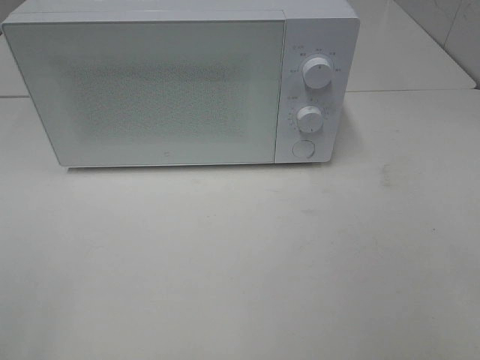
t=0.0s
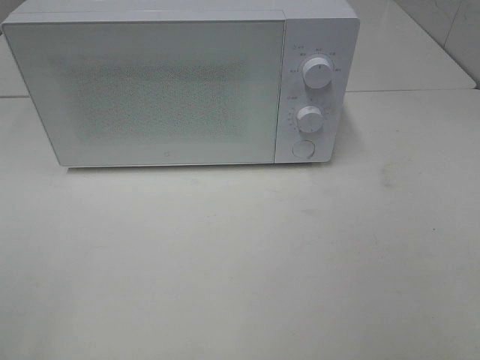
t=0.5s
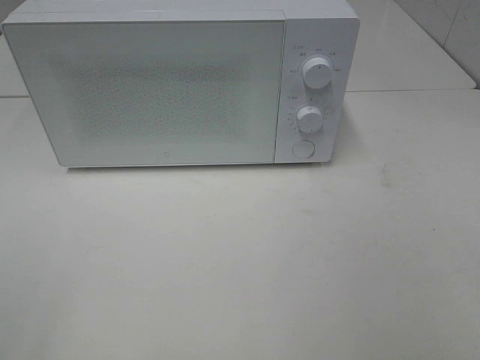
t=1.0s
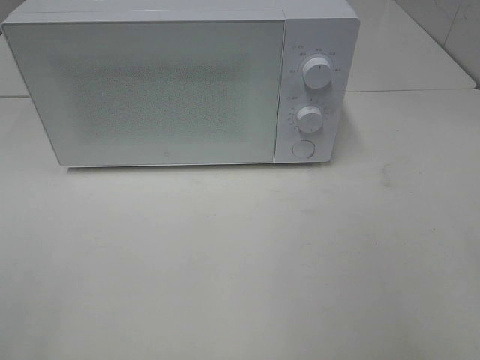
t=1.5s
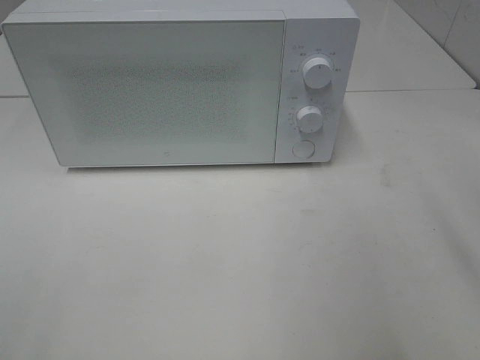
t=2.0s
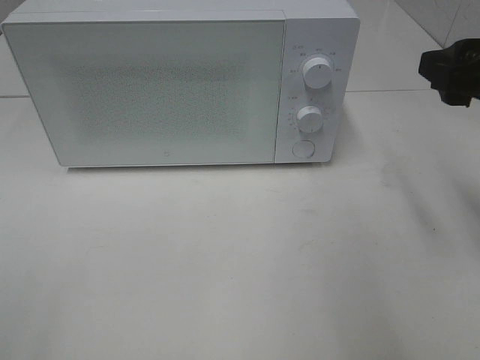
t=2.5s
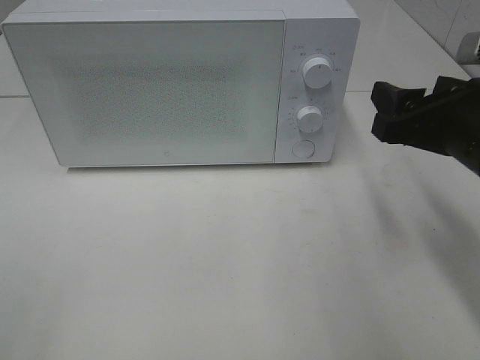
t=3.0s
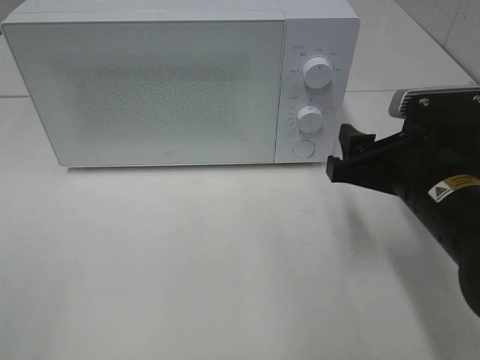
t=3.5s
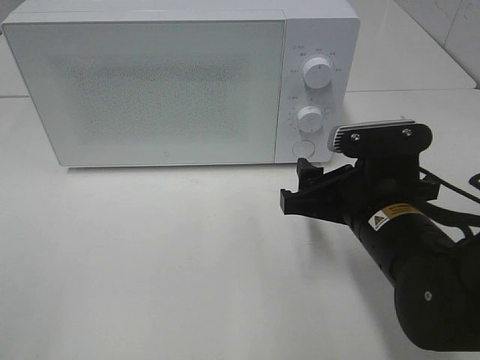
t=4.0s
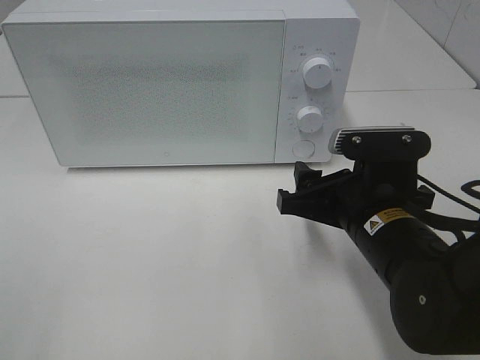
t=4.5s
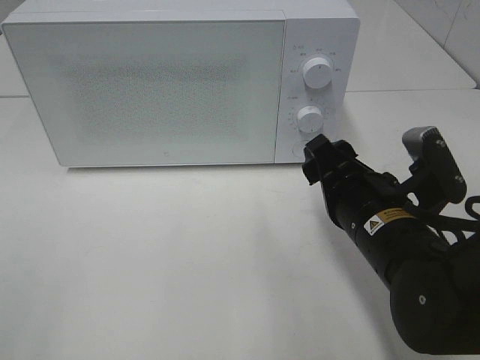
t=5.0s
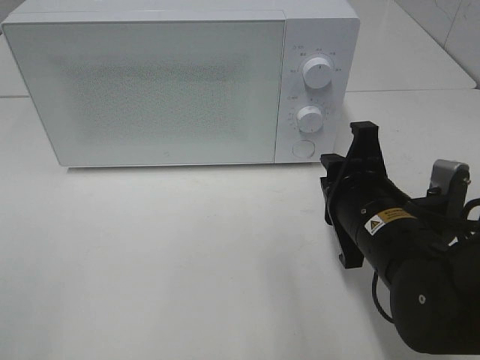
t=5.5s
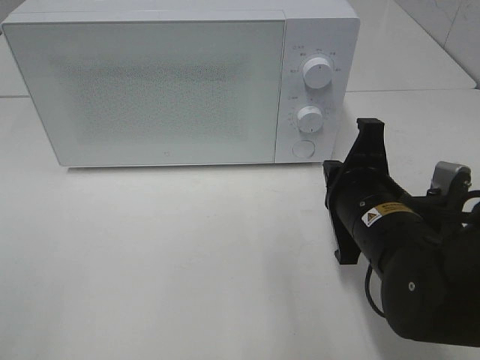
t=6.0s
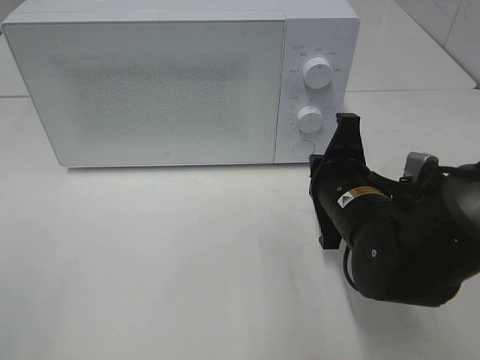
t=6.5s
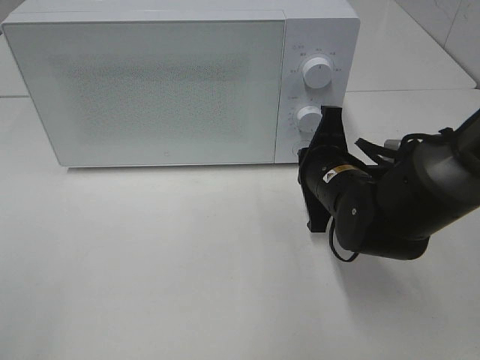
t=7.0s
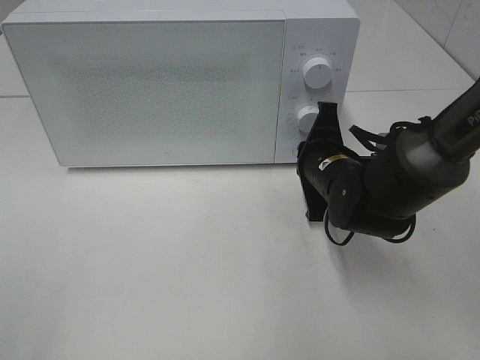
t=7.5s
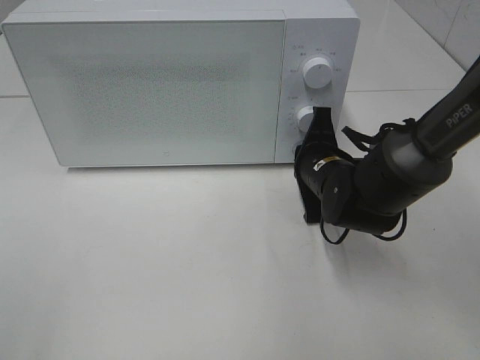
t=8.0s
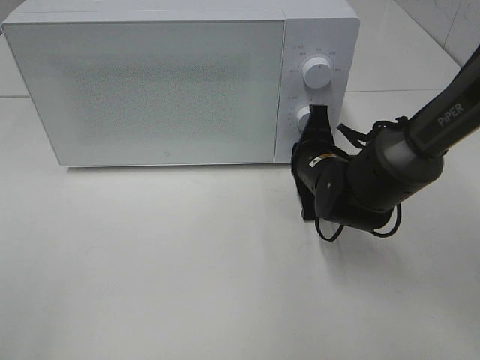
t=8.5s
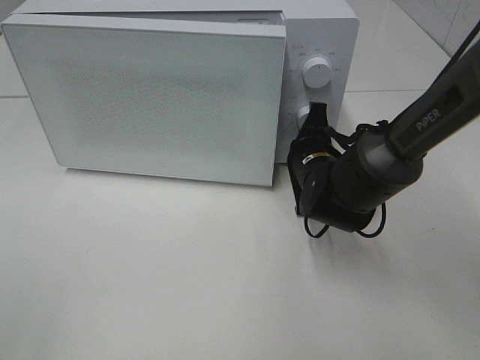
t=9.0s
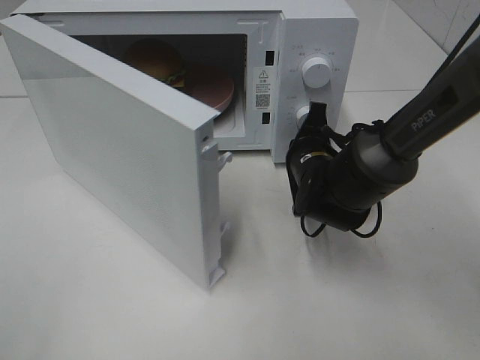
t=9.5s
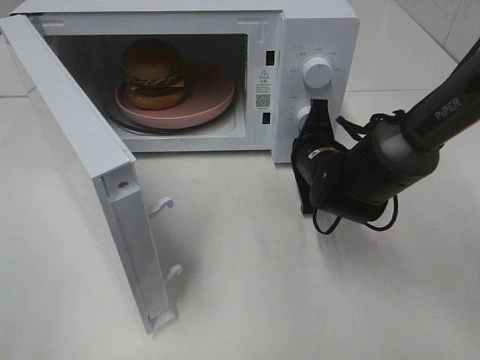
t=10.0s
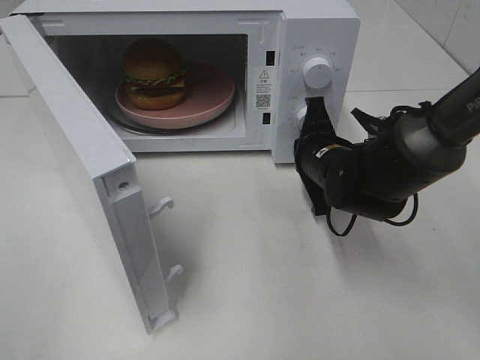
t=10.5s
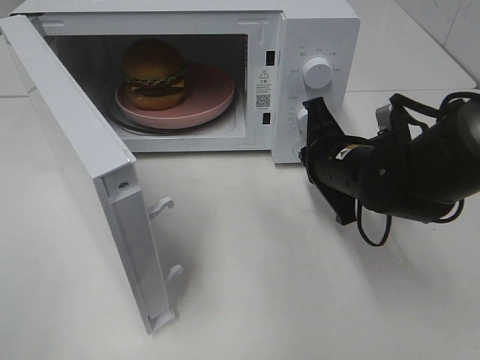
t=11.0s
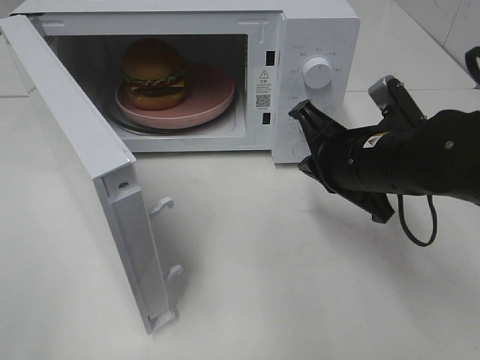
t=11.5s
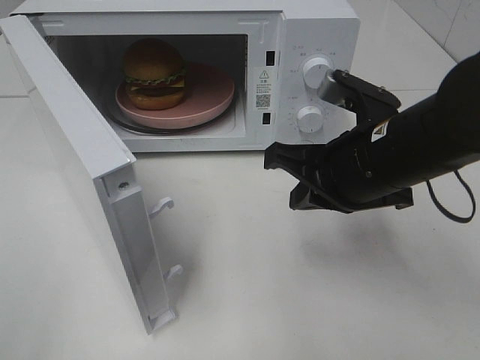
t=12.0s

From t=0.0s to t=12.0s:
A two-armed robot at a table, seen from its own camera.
Task of the whole recording: Heat the burger.
Step, from t=0.0s to t=10.5s: Right hand: press the switch.
From t=2.0s to t=4.0s: The right gripper heads downward and to the left, covering roughly 20 cm.
From t=4.0s to t=6.0s: The right gripper closes its fingers.
From t=6.0s to t=8.0s: The right gripper shifts some 15 cm forward and downward.
From t=10.0s to t=12.0s: The right gripper heads backward and upward, covering some 15 cm.

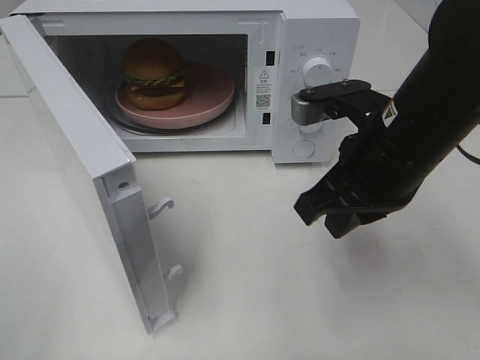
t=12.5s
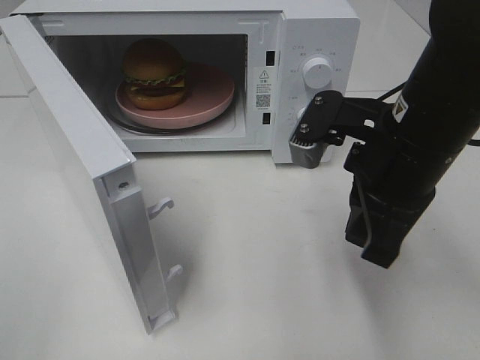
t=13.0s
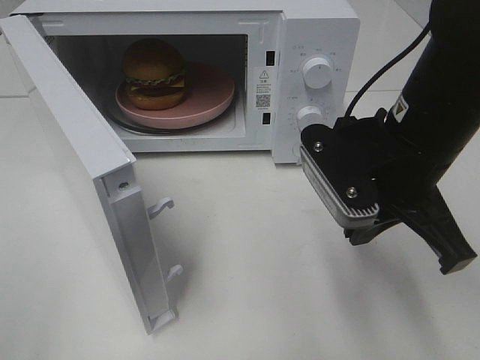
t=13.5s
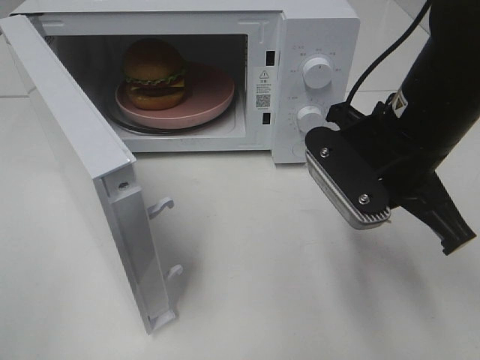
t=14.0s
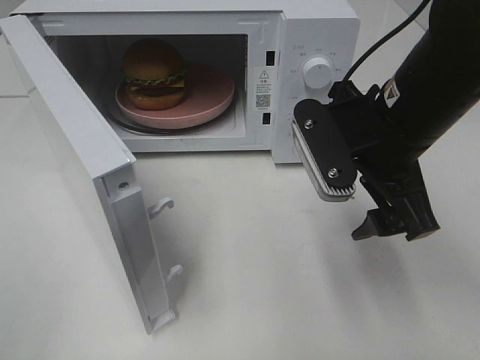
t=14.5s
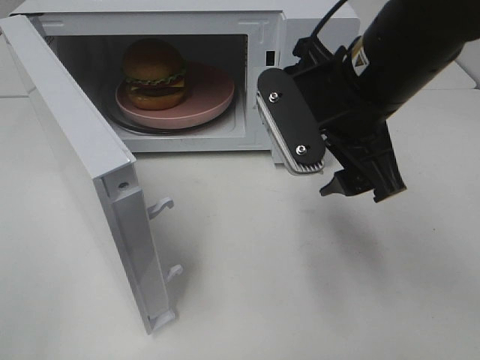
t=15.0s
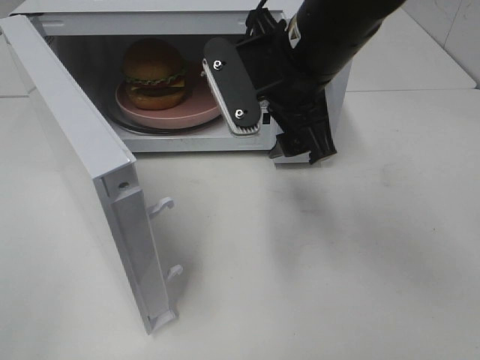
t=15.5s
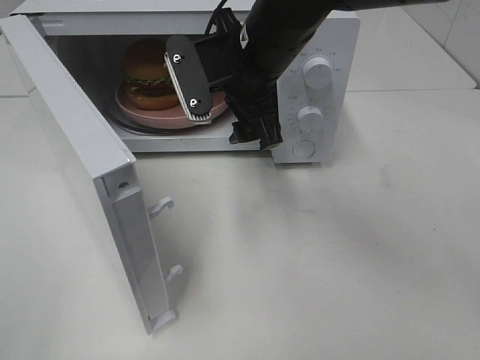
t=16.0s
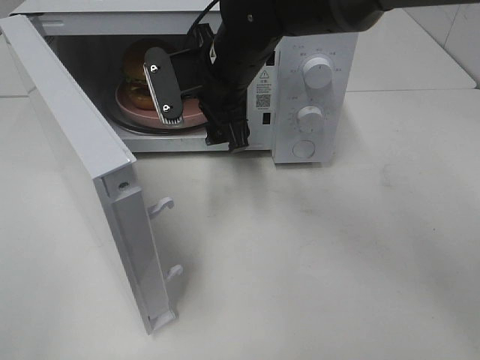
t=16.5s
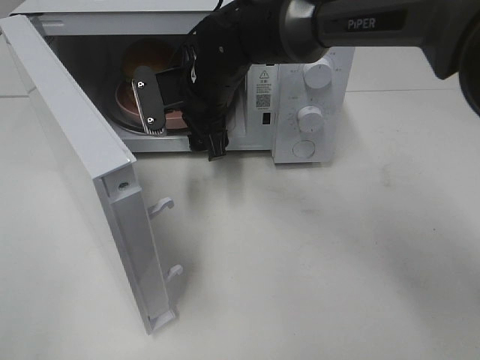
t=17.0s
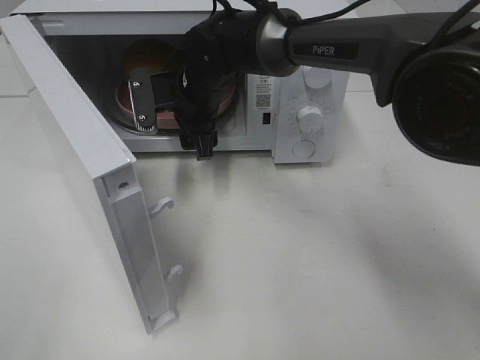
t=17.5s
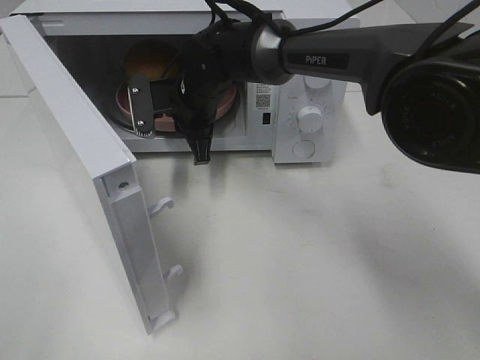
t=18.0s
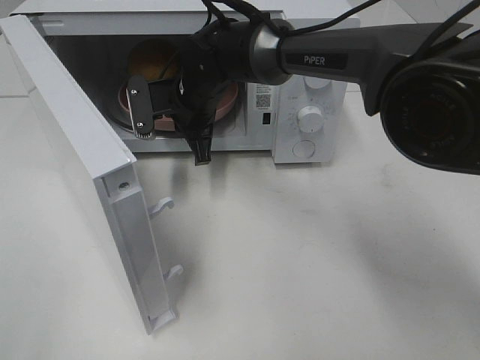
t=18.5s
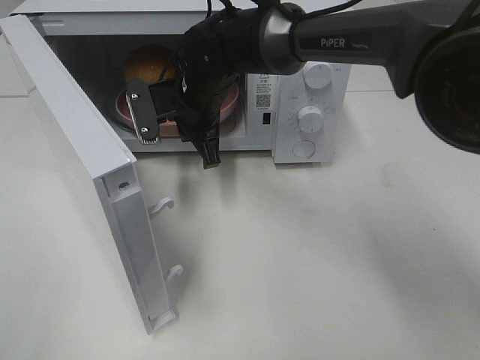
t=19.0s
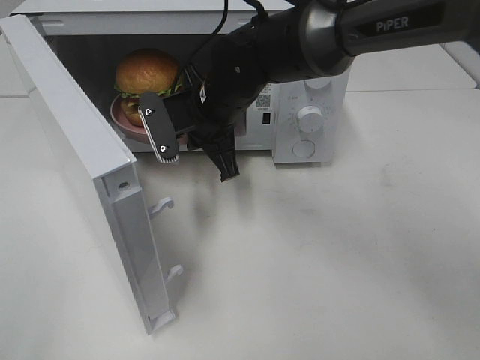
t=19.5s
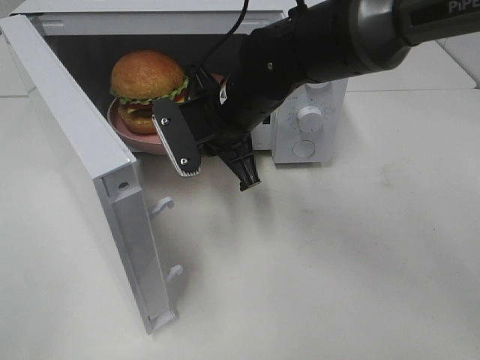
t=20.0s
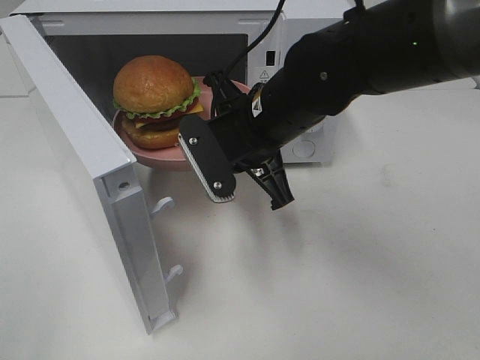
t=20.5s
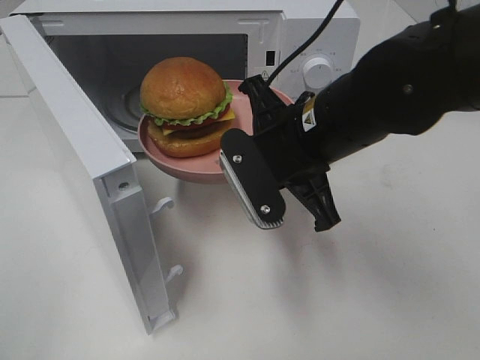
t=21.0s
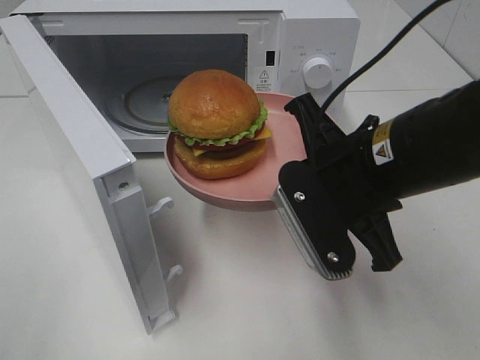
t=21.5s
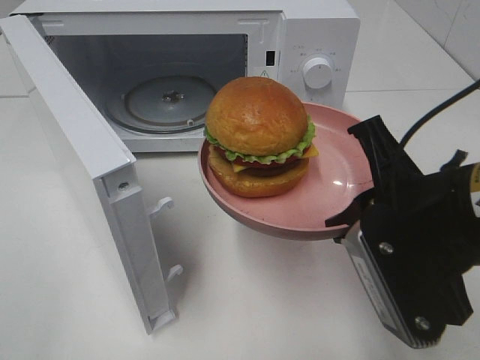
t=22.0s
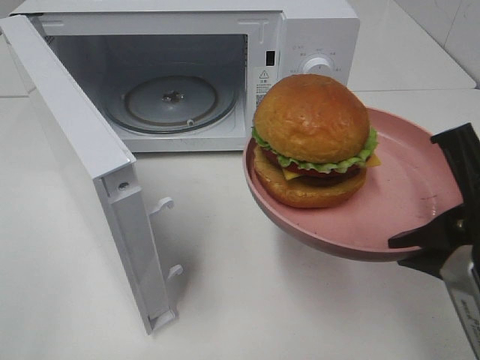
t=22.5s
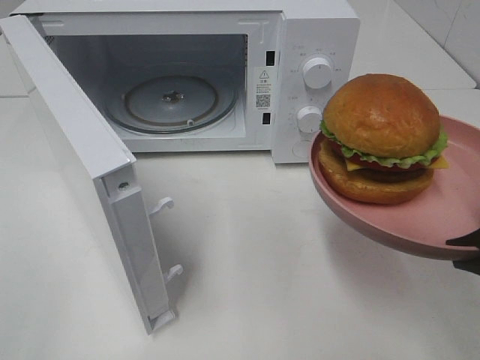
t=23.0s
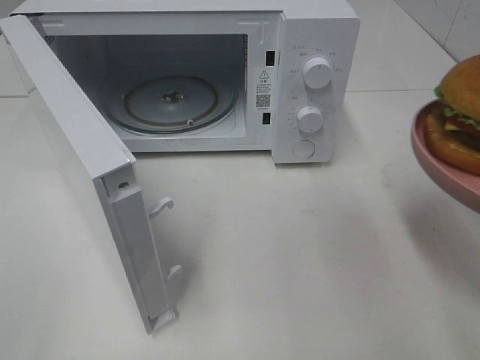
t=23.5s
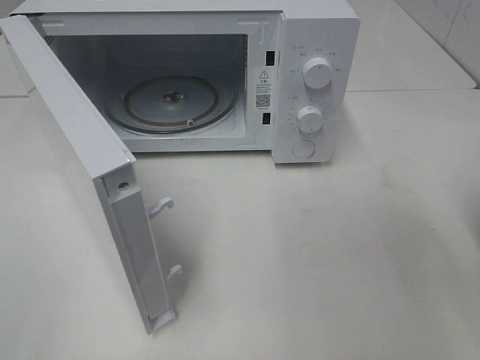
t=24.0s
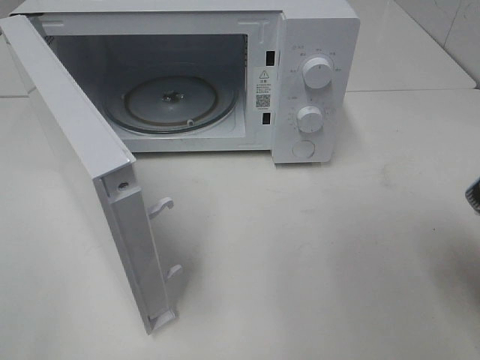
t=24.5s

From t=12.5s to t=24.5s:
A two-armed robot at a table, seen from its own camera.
Task of the whole recording: Heat the burger.
Step, from t=12.5s to t=18.0s: Right hand: grab the plate with the hamburger.
From t=12.5s to t=14.5s: The right gripper opens up.
From t=14.5s to t=16.5s: The right gripper moves to the left and forward, roughly 20 cm.
From t=16.5s to t=18.5s: The right gripper goes approximately 10 cm downward and forward, and closes up.
From t=18.5s to t=20.5s: The right gripper shifts approximately 15 cm backward and to the right.
From t=20.5s to t=22.5s: The right gripper moves backward and to the right, approximately 25 cm.
From t=22.5s to t=24.5s: The right gripper heads to the right, covering roughly 5 cm.

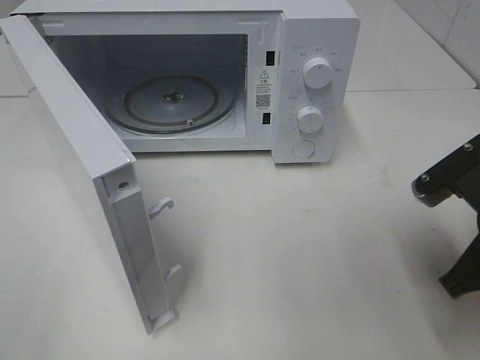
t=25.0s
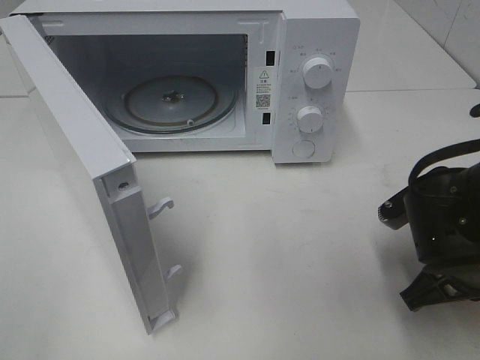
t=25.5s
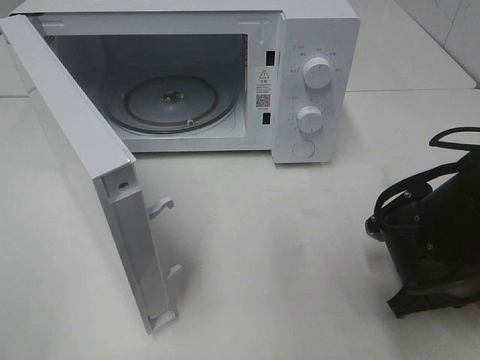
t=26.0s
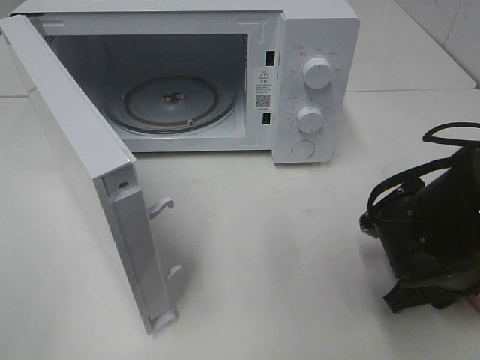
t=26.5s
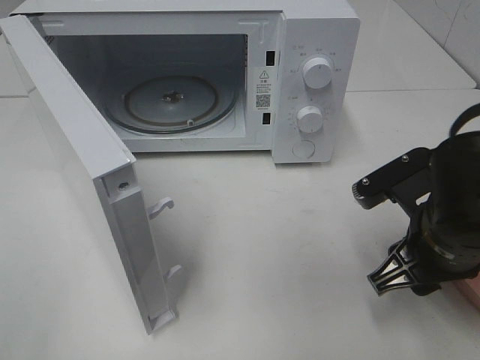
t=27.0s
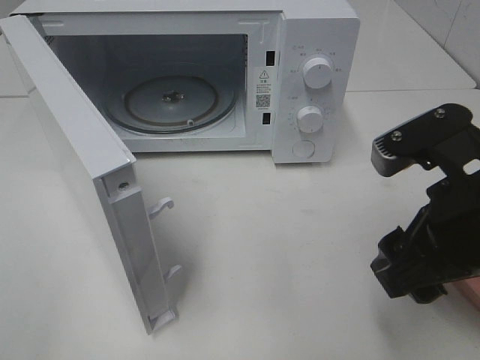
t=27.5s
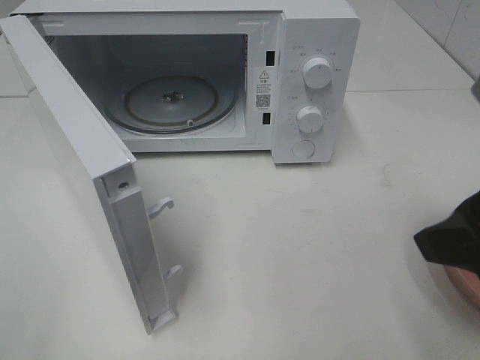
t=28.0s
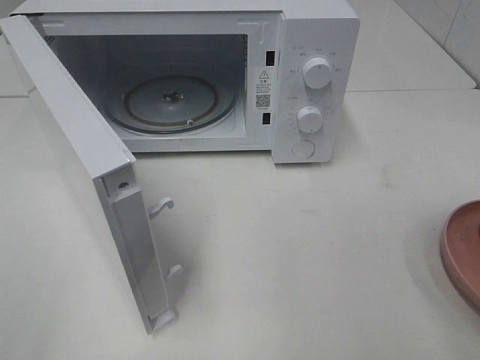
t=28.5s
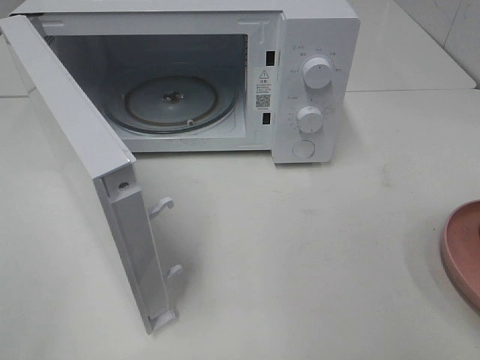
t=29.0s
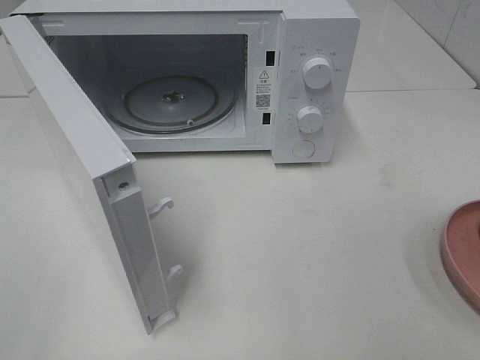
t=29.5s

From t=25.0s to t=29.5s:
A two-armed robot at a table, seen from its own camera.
Task of the whole recording: Heat the burger.
From t=25.0s to t=27.0s: The right gripper reaches approximately 10 cm downward, then returns, and opens up.
From t=27.0s to t=29.5s: The right gripper heads backward, upward and to the right, covering roughly 25 cm.
